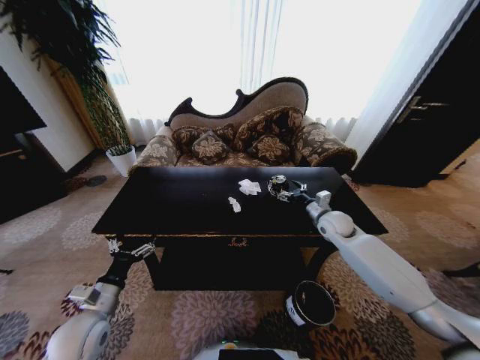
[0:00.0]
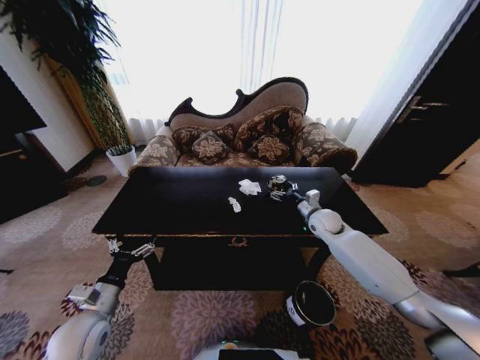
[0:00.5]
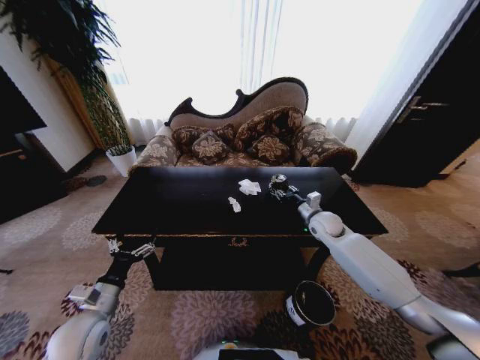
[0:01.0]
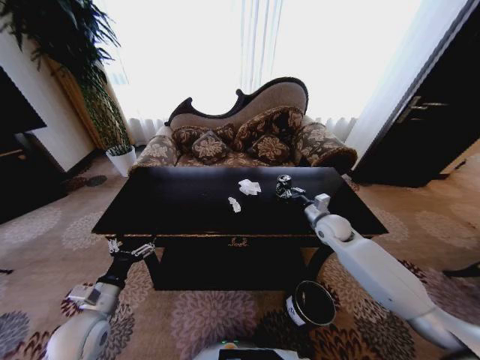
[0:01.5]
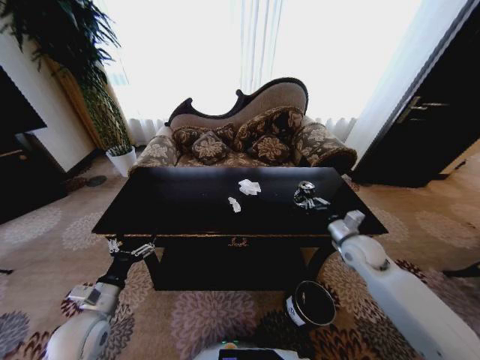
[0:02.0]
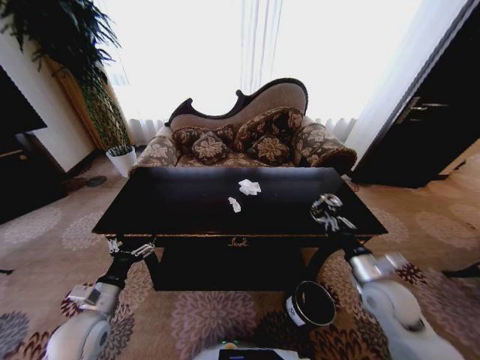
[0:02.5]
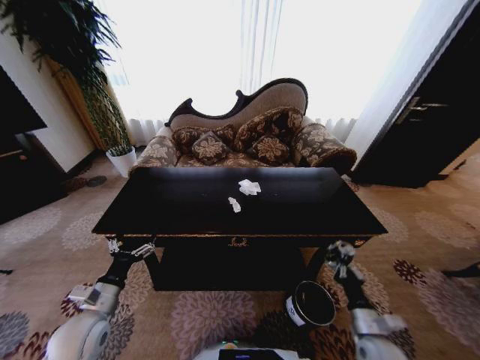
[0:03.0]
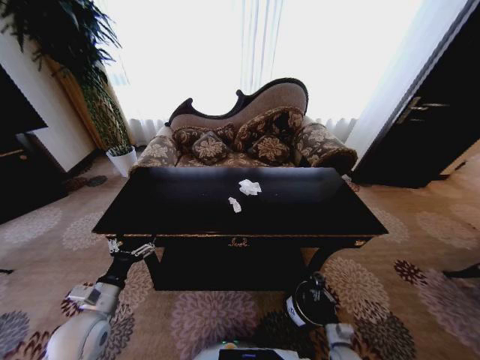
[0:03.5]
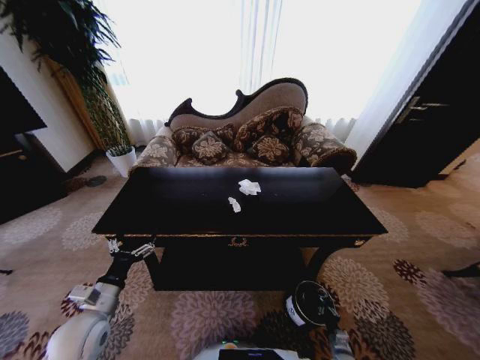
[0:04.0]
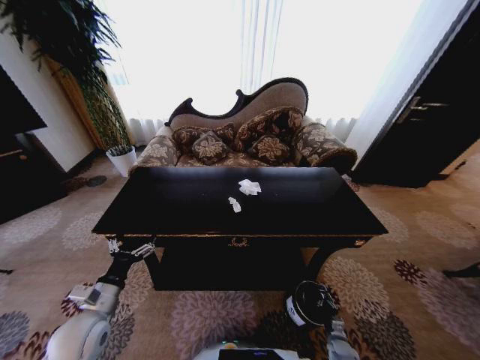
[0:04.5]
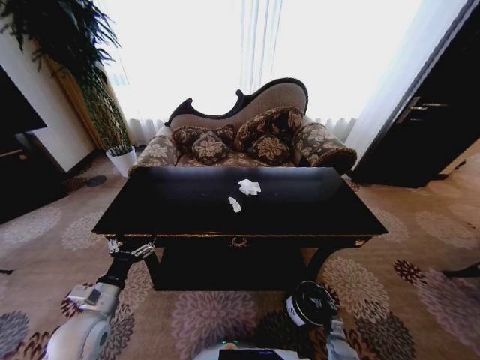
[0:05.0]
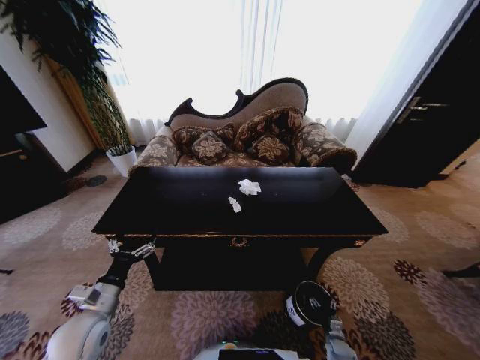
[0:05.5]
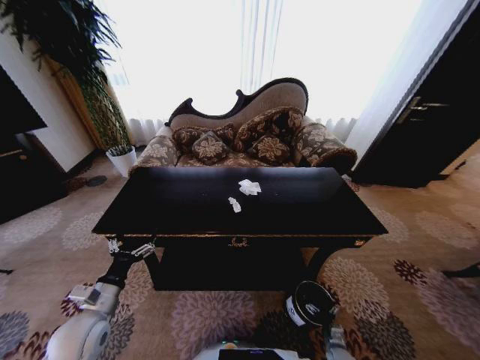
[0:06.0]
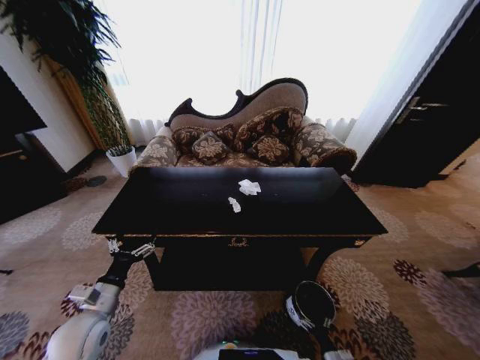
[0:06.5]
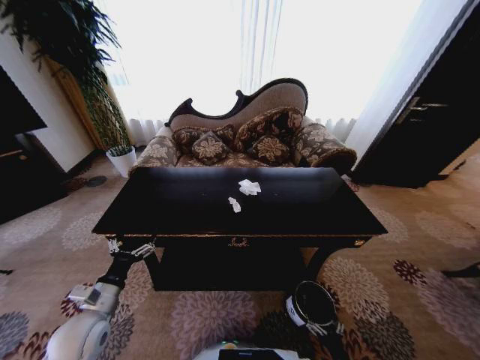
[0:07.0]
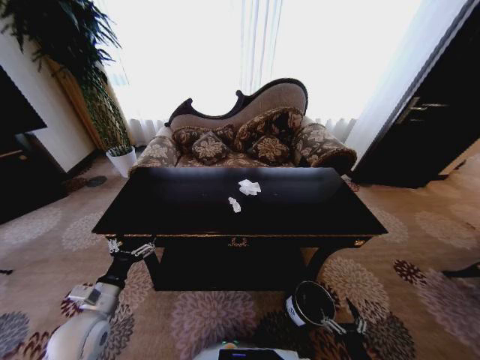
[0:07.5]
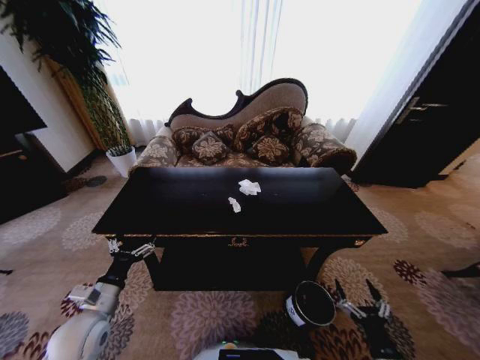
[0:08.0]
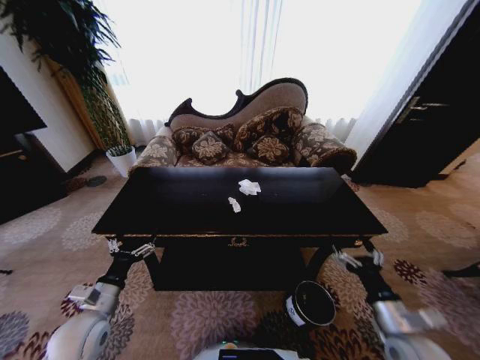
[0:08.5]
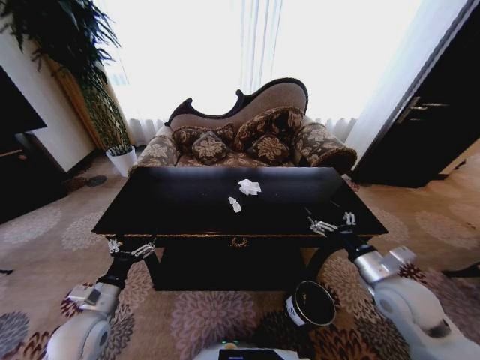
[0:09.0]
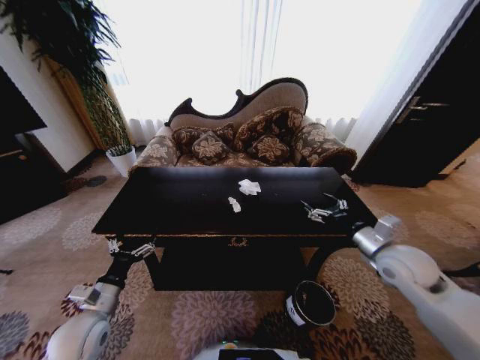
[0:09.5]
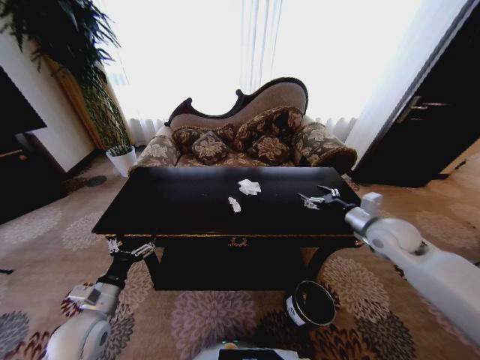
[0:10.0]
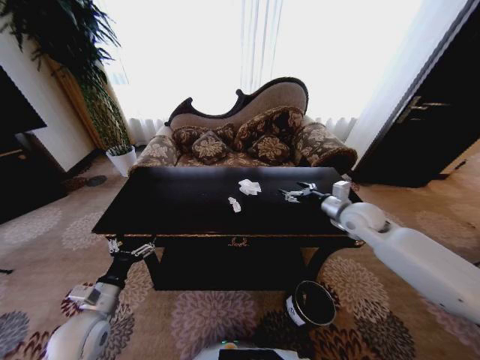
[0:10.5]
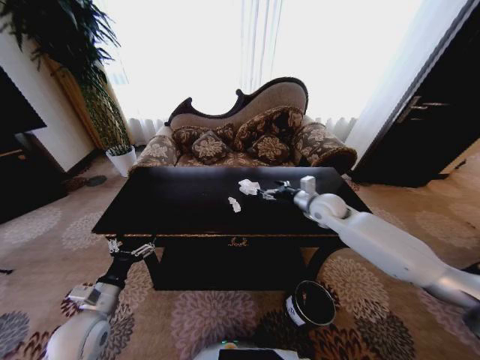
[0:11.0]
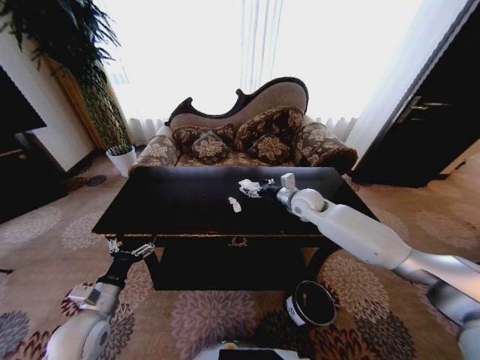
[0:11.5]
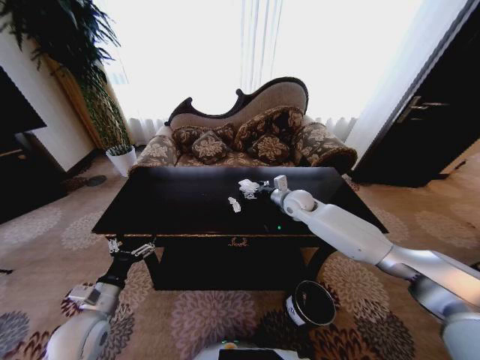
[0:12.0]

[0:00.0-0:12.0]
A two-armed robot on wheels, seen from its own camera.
Task of the whole recording: Move to the front of the table and place the trash on the table into the trash bin.
0:00.0 to 0:02.0: The right gripper goes about 10 cm backward, and closes its fingers.
0:02.0 to 0:04.0: The right gripper moves downward and backward, some 50 cm.
0:04.0 to 0:06.0: The right gripper opens up.
0:06.0 to 0:08.0: The right gripper travels upward by about 25 cm.
0:08.0 to 0:10.0: The right gripper moves forward and upward, roughly 40 cm.
0:10.0 to 0:12.0: The right gripper heads to the left and forward, covering some 25 cm.

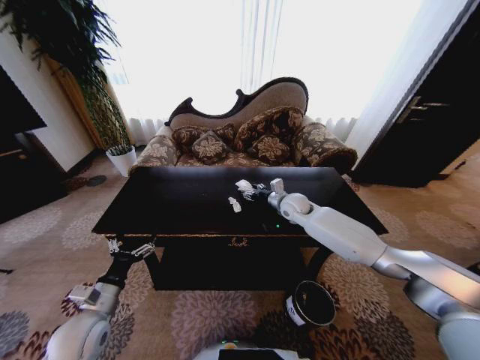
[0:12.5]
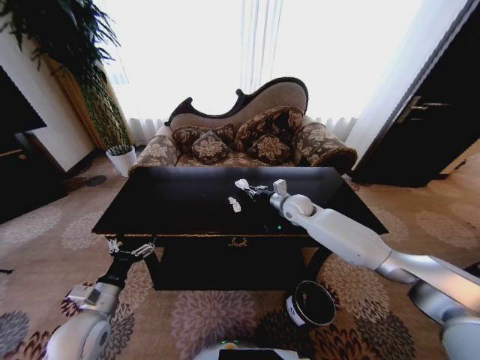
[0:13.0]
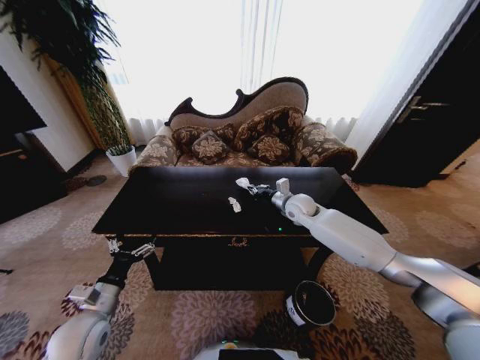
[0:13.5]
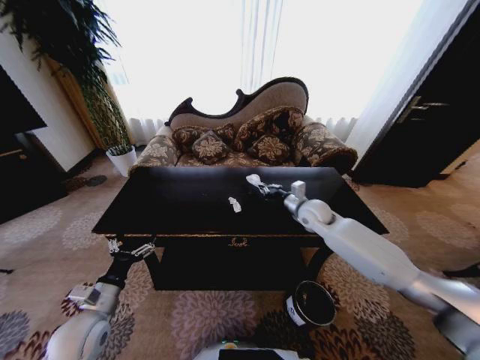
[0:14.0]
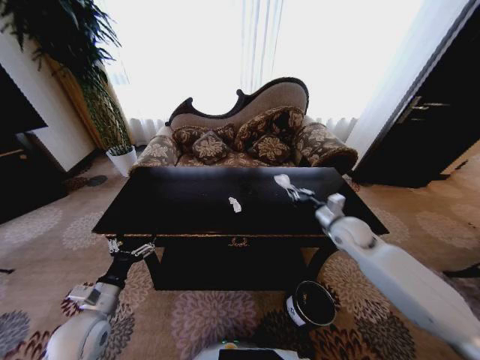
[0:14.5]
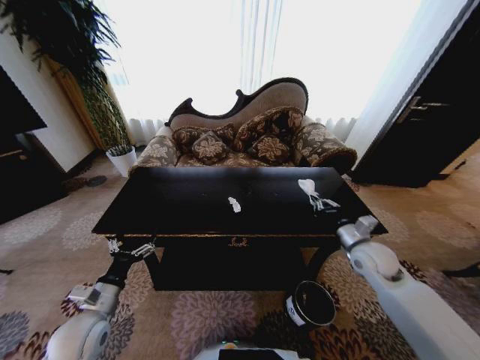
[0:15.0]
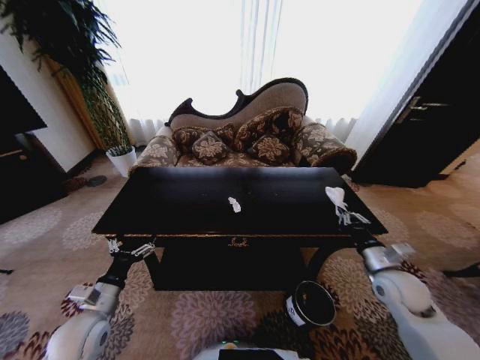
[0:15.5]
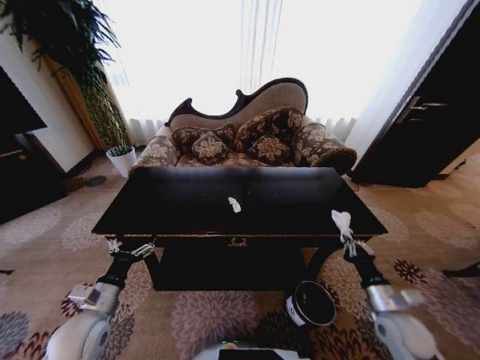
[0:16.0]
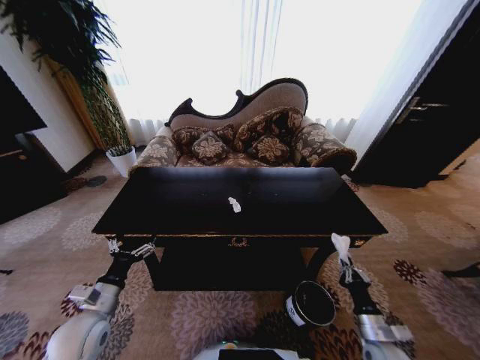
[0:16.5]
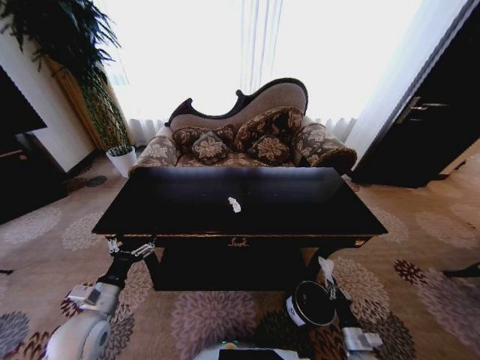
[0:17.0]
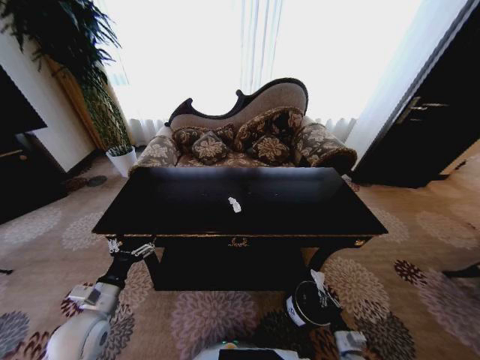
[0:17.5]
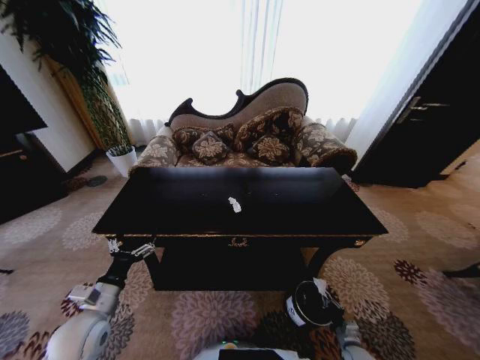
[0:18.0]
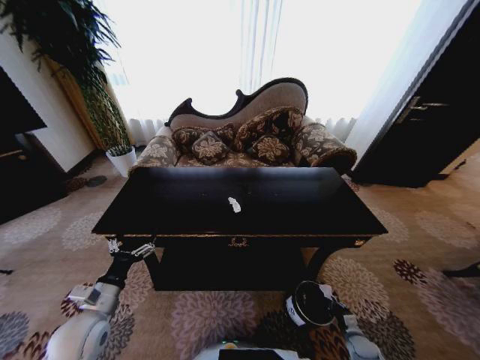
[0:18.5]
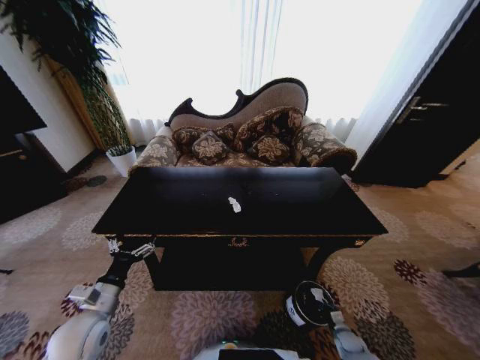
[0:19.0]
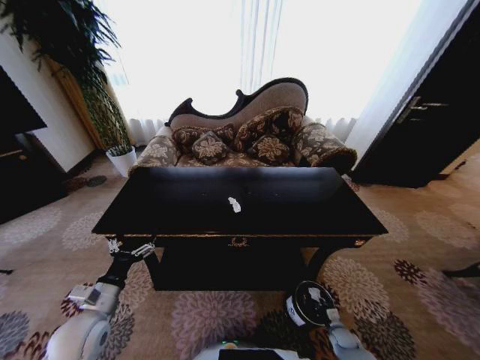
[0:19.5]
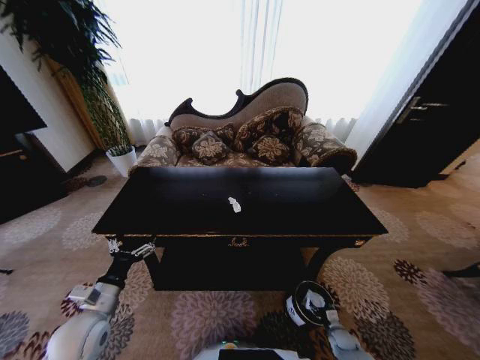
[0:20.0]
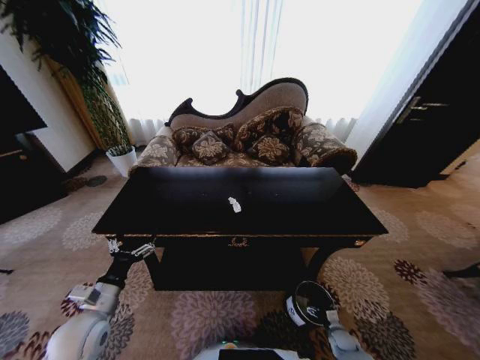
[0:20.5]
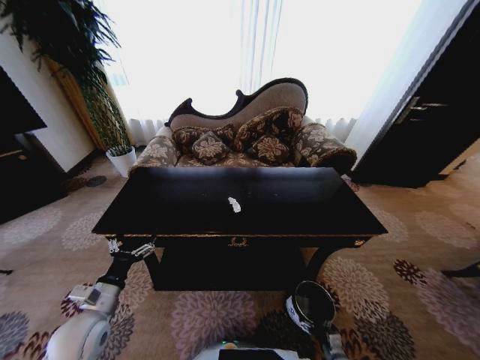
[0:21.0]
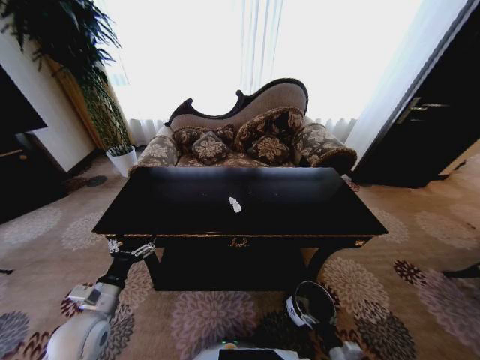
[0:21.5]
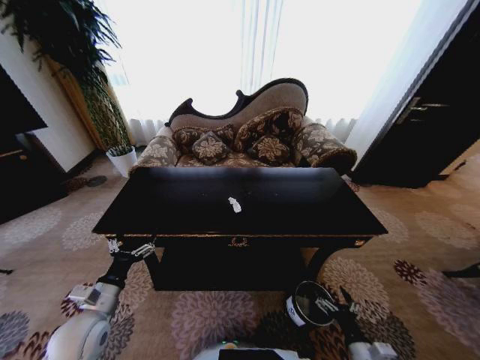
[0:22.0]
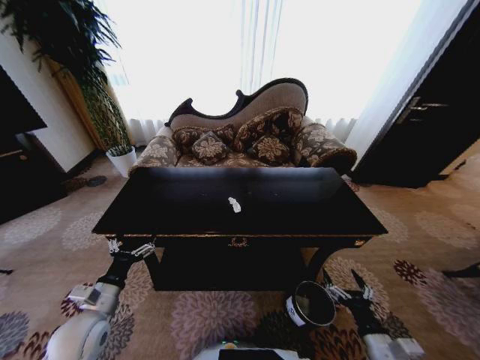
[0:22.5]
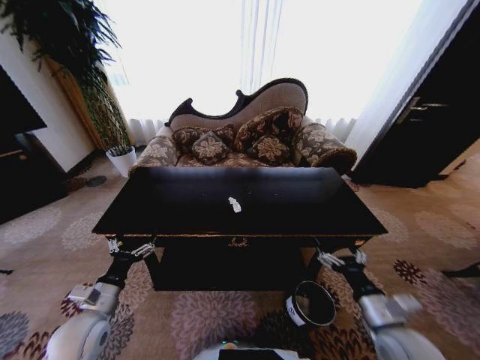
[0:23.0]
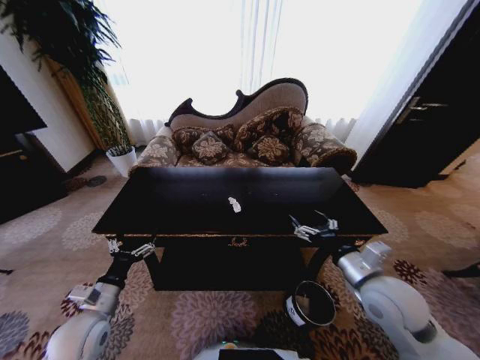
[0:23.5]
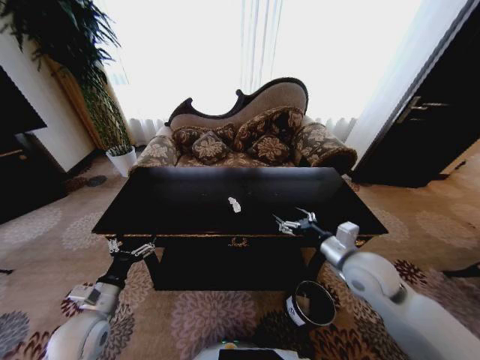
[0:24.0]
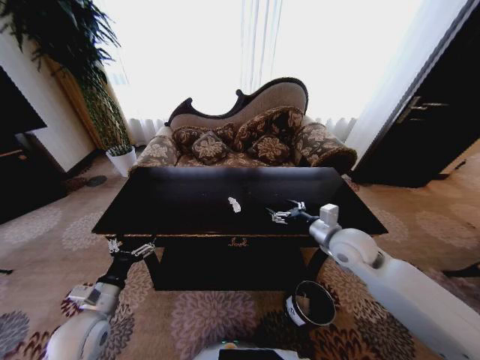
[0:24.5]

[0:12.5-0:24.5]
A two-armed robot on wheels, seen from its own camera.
Task of the whole recording: Move to the front of the table and place the trash on the table into the trash bin.
0:12.5 to 0:14.5: The right gripper is displaced to the right and backward by approximately 20 cm, and closes its fingers.
0:14.5 to 0:16.5: The right gripper goes some 35 cm backward and downward.
0:16.5 to 0:18.5: The right gripper shifts about 20 cm downward.
0:18.5 to 0:20.5: The right gripper moves roughly 5 cm, and opens up.
0:20.5 to 0:22.5: The right gripper goes approximately 25 cm upward.
0:22.5 to 0:24.5: The right gripper is displaced forward and upward by approximately 30 cm.

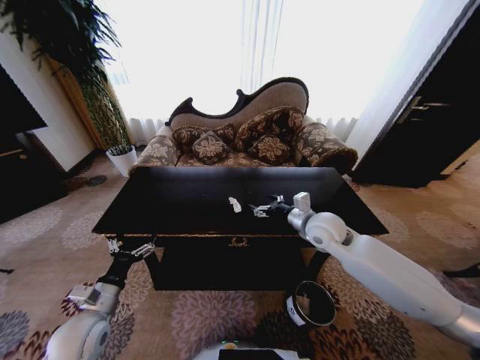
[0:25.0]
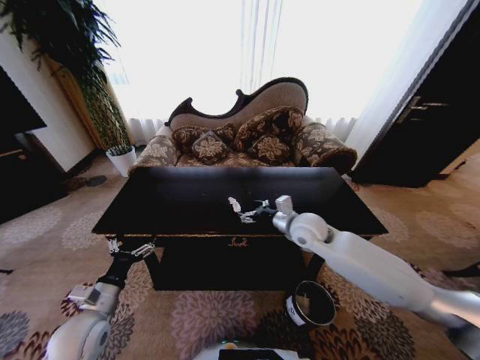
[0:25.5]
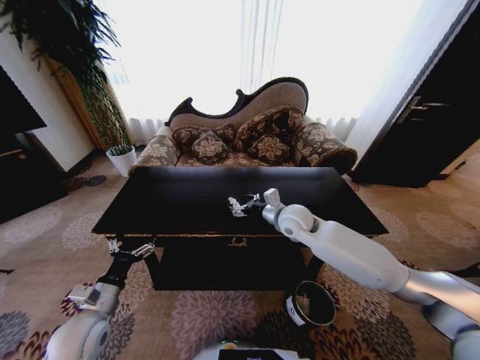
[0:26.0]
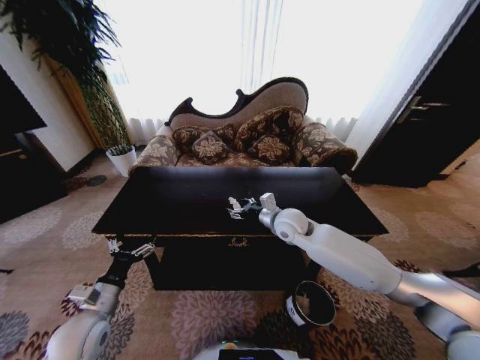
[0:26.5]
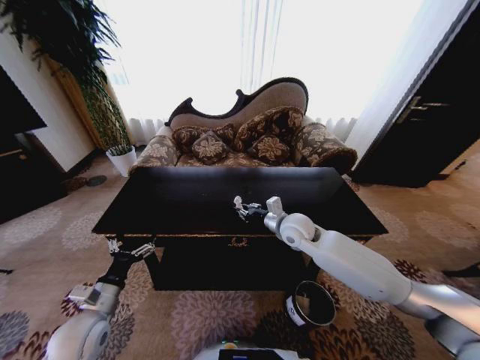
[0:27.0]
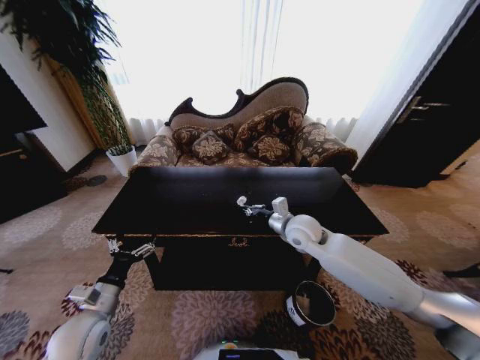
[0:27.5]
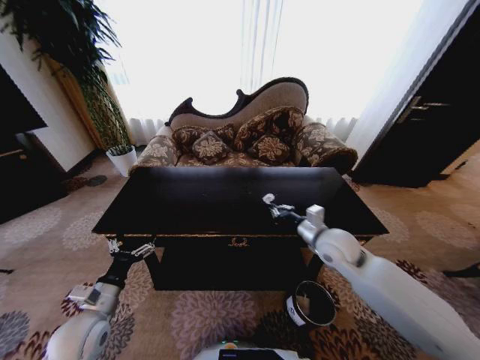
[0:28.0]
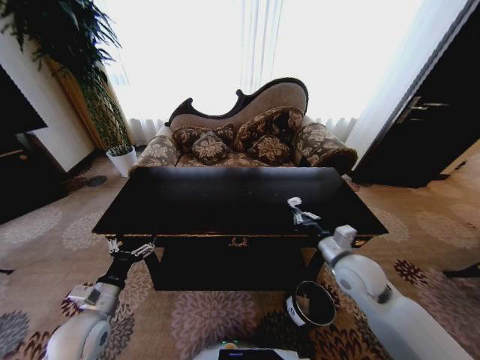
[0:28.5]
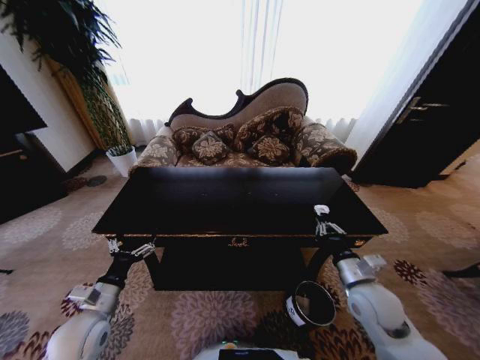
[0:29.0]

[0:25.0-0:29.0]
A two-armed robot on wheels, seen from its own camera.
Task of the whole recording: Move to the front of the table and place the trash on the table into the trash bin.
0:25.0 to 0:27.0: The right gripper heads to the left, covering roughly 5 cm, and closes.
0:27.0 to 0:29.0: The right gripper heads backward and to the right, covering roughly 25 cm.
